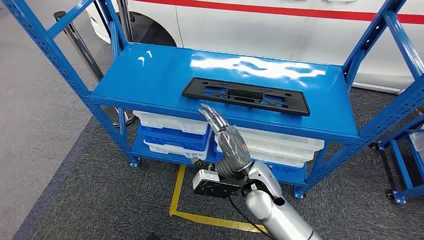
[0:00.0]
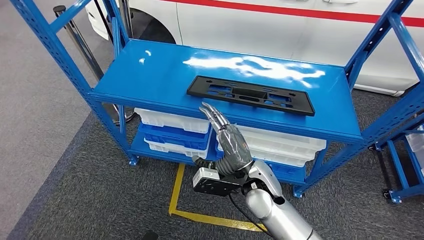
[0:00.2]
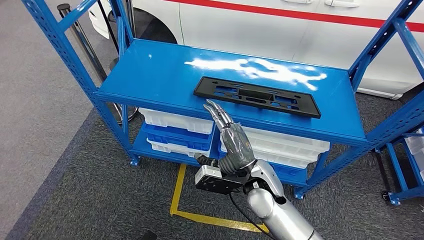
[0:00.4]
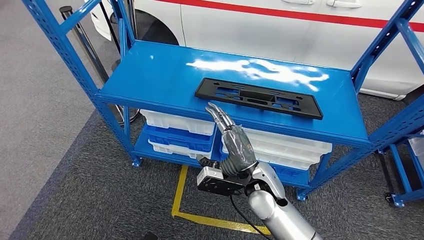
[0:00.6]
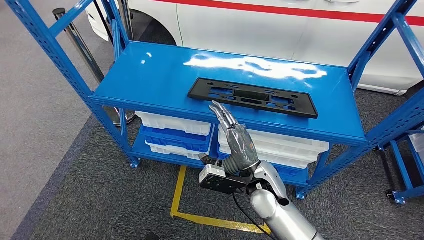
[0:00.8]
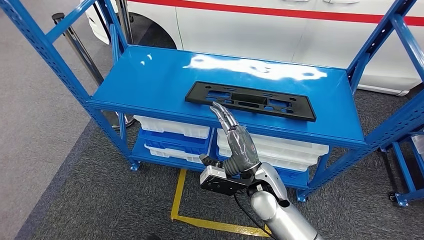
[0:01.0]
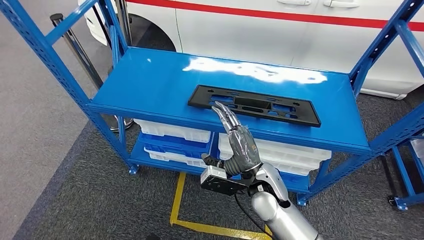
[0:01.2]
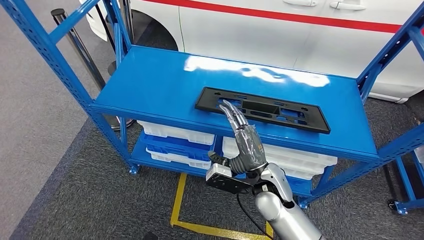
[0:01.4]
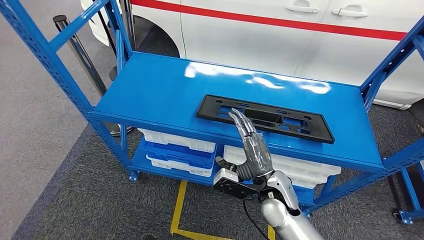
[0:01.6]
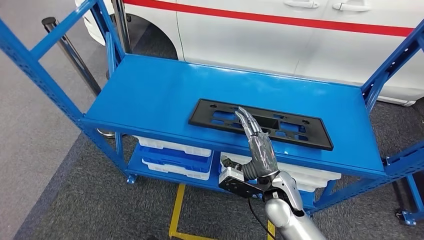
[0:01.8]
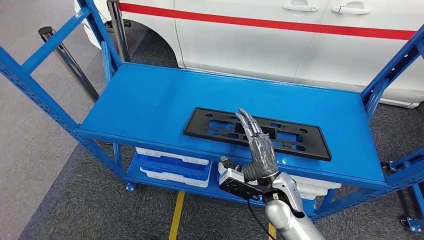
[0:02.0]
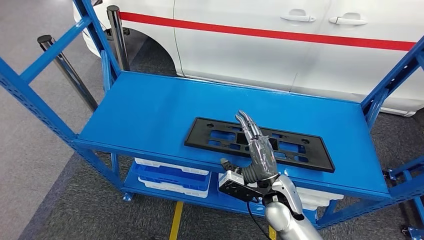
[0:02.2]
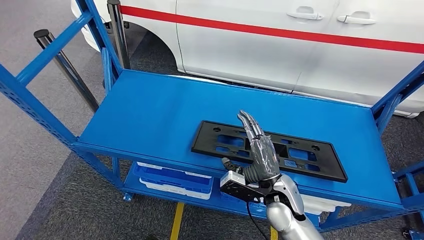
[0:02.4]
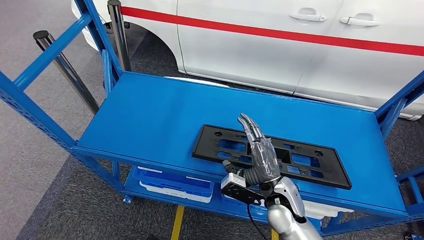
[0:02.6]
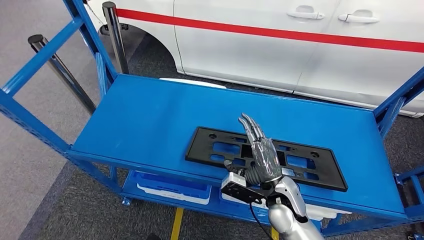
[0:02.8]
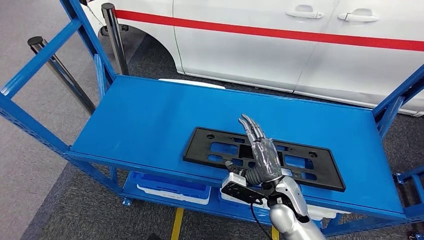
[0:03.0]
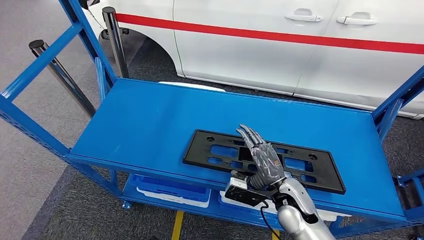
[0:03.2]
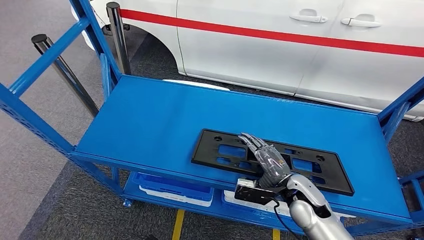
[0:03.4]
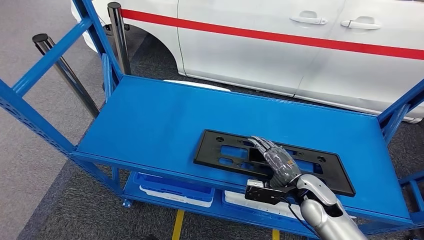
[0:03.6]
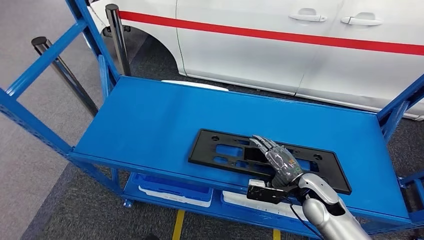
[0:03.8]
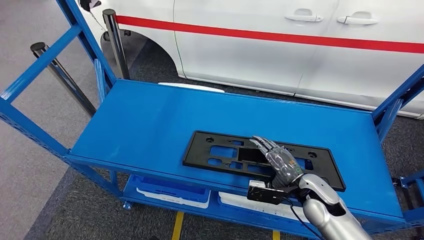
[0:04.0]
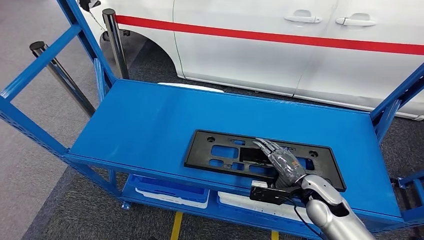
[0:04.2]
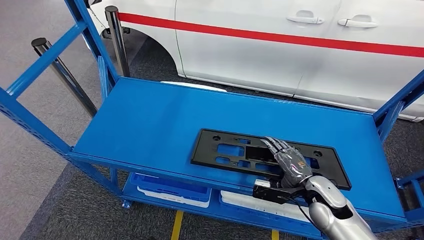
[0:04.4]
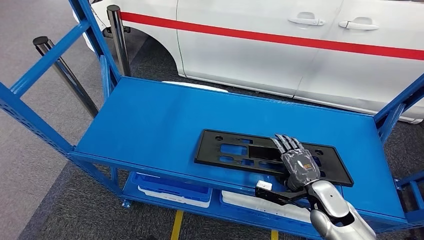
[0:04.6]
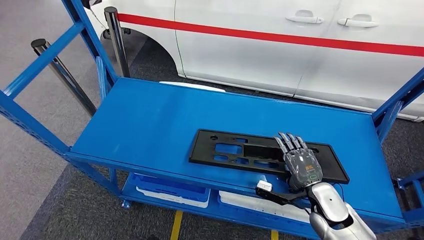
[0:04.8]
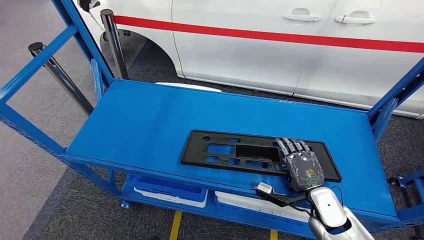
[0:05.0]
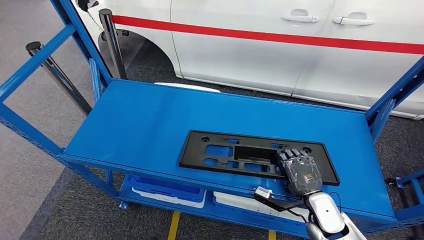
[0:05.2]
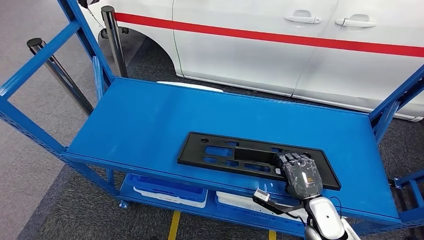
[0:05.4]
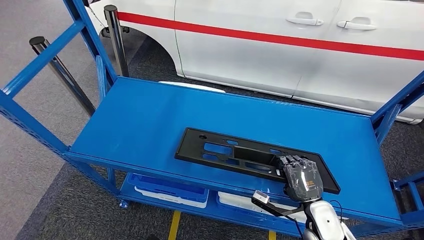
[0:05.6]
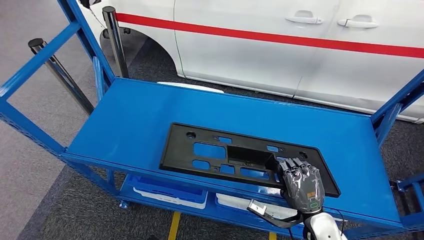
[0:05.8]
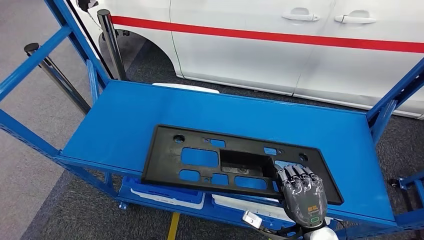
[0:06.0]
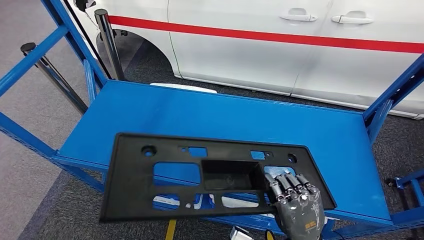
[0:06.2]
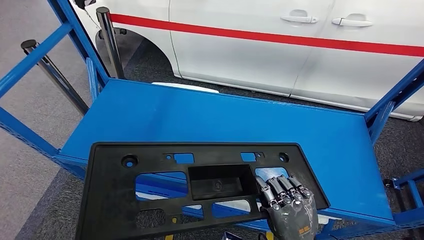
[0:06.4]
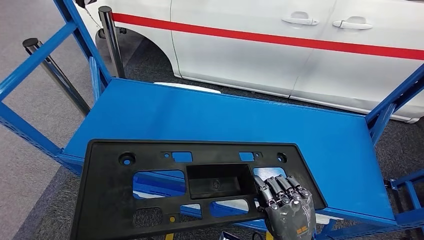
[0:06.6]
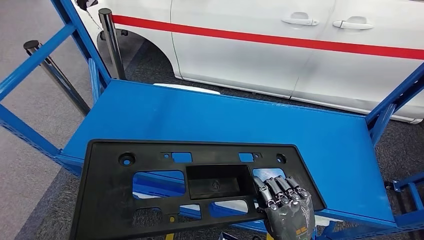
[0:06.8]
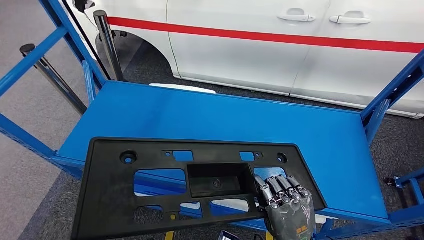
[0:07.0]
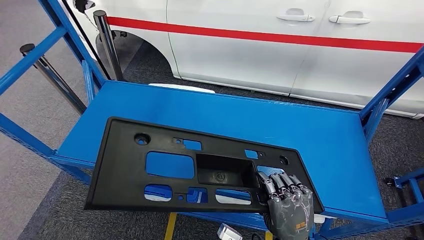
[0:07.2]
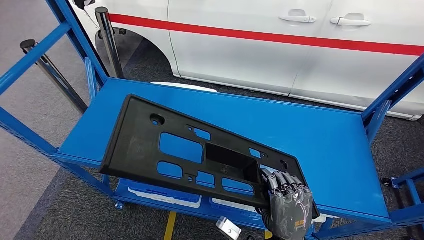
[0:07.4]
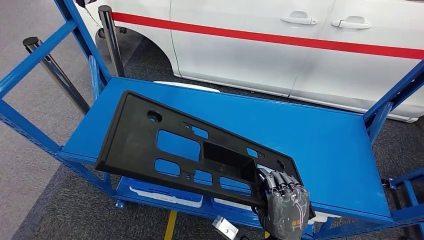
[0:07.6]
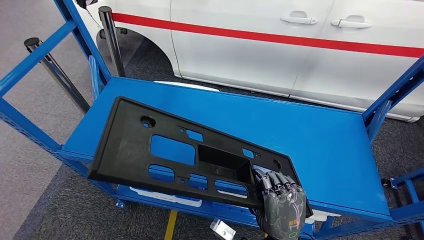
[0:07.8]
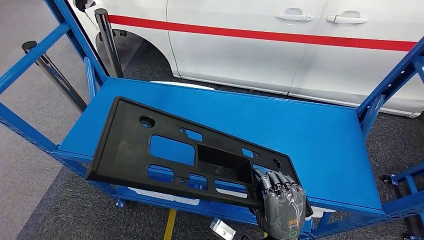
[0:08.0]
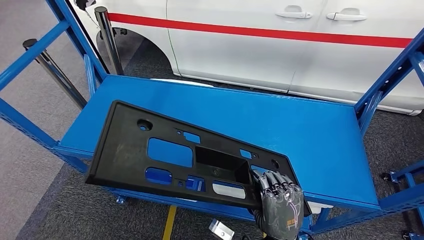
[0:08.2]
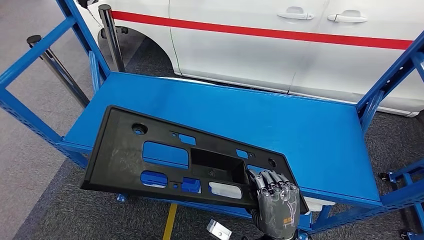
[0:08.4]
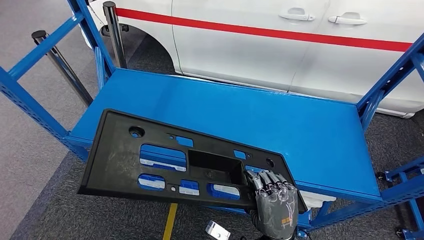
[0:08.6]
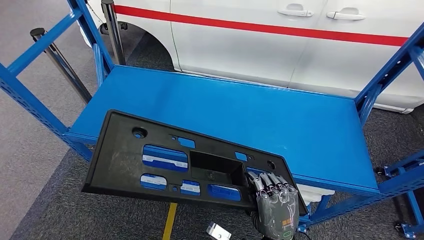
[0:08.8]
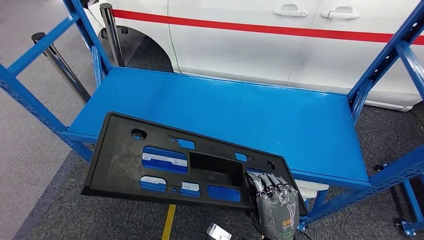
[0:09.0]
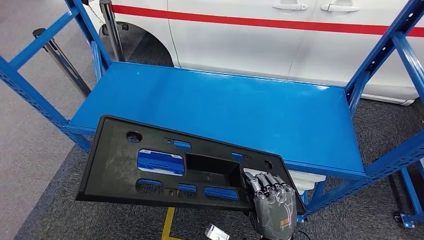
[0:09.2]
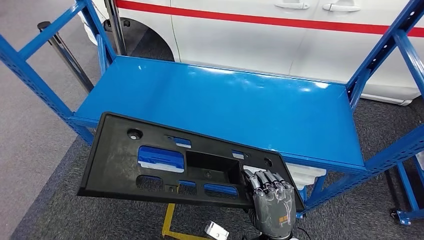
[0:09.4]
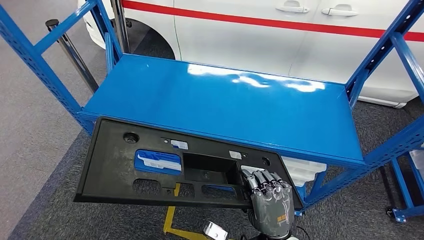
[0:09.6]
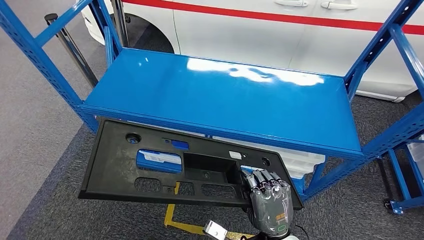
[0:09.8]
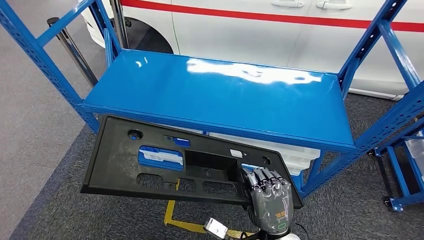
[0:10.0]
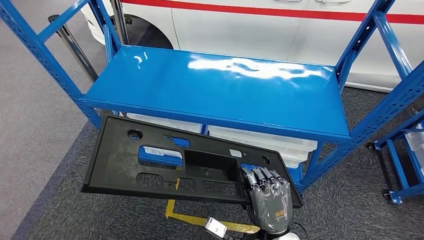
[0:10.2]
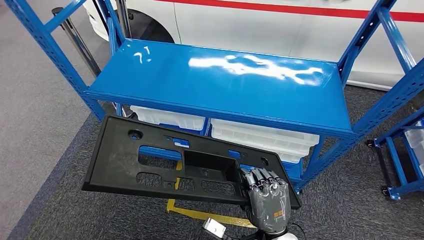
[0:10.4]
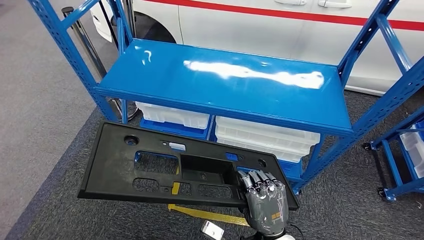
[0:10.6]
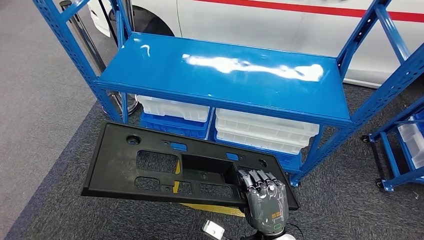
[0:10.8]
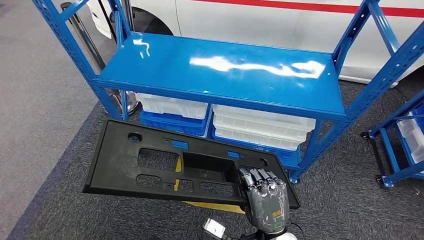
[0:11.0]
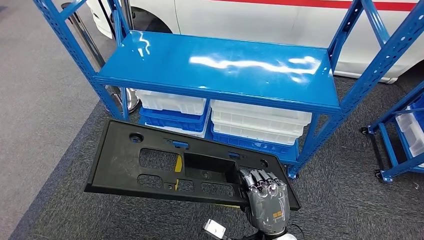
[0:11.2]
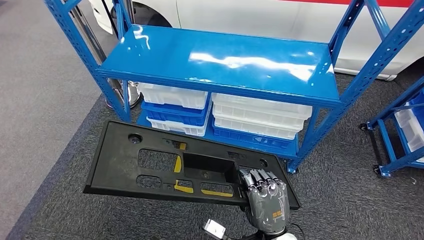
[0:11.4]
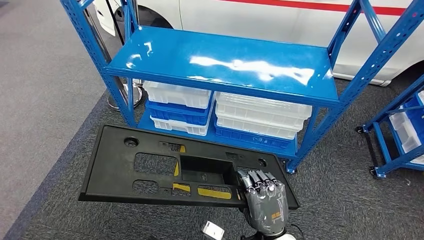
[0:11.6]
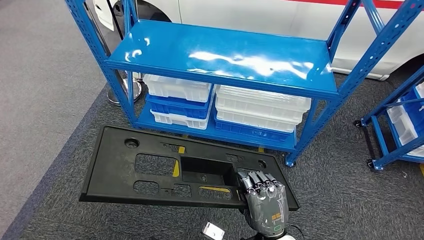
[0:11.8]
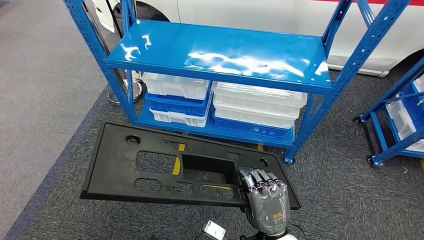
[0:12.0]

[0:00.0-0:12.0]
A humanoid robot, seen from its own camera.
Step, 0:00.0 to 0:09.0: Pick up the large material from the shelf.

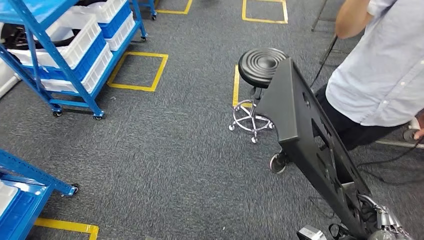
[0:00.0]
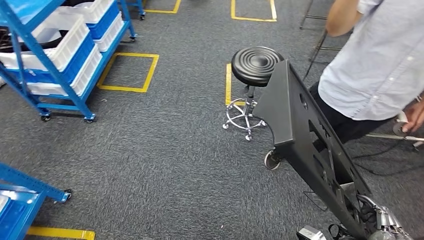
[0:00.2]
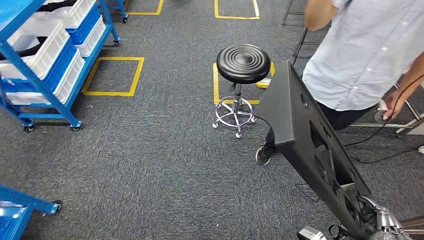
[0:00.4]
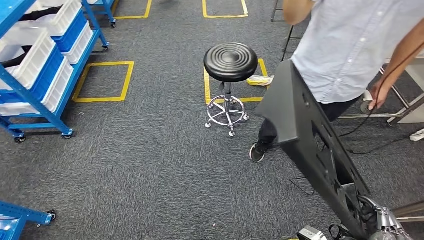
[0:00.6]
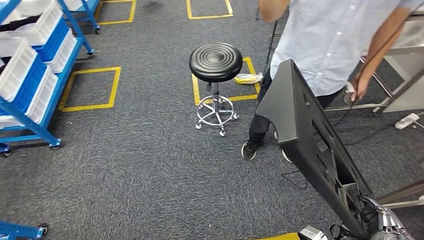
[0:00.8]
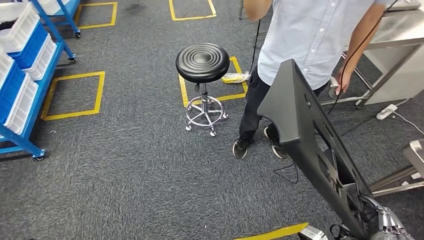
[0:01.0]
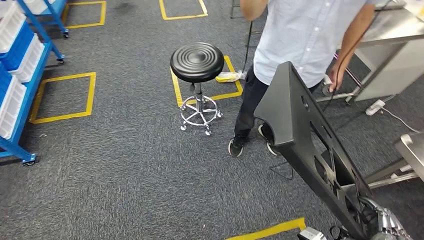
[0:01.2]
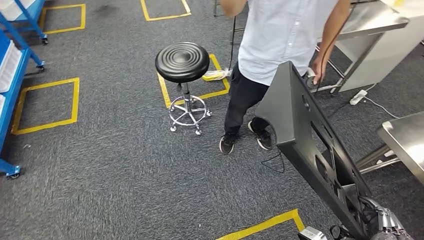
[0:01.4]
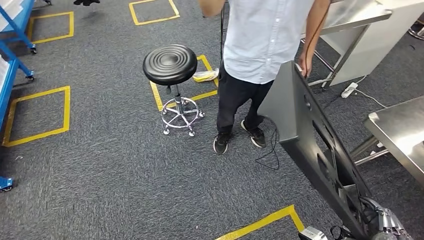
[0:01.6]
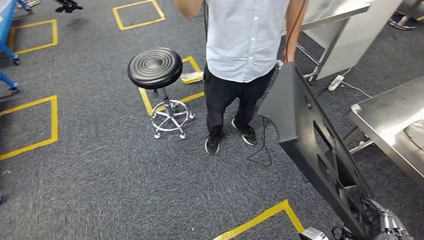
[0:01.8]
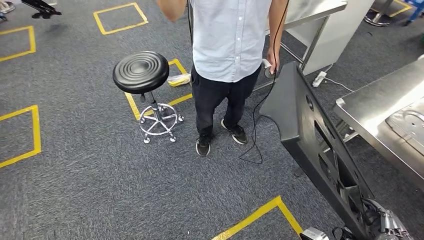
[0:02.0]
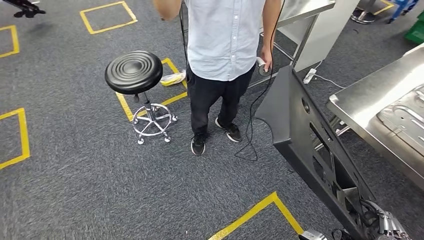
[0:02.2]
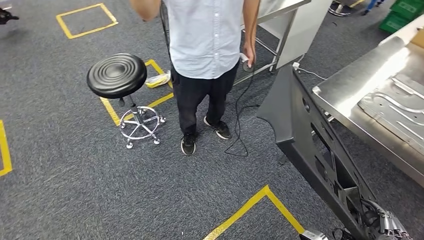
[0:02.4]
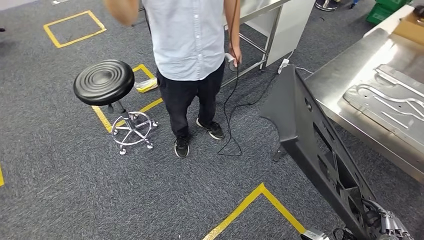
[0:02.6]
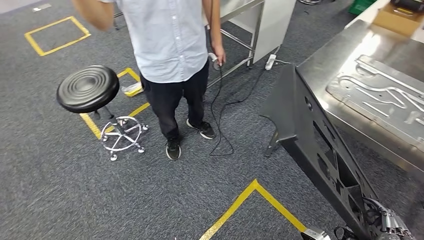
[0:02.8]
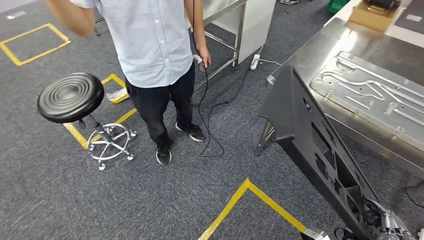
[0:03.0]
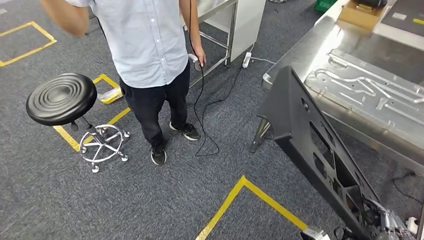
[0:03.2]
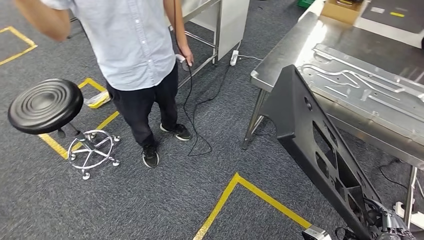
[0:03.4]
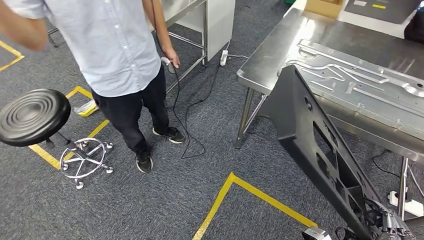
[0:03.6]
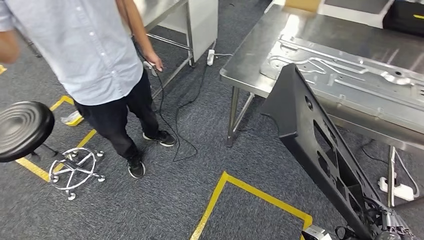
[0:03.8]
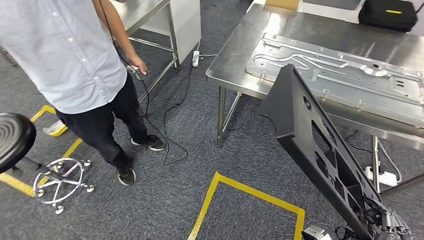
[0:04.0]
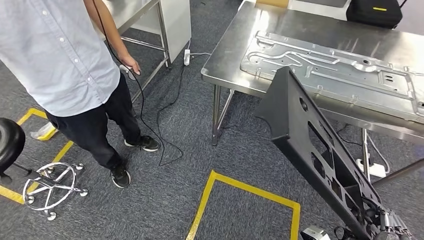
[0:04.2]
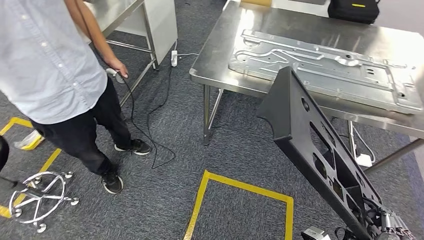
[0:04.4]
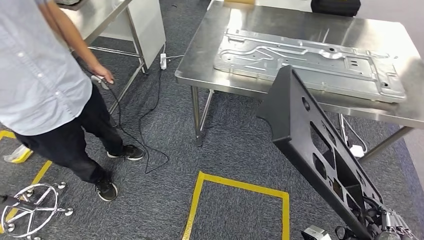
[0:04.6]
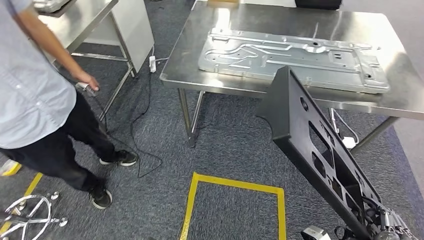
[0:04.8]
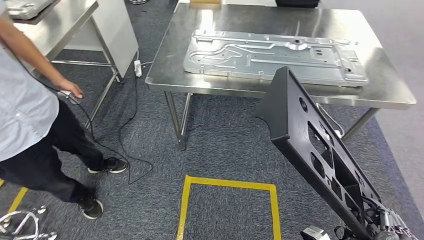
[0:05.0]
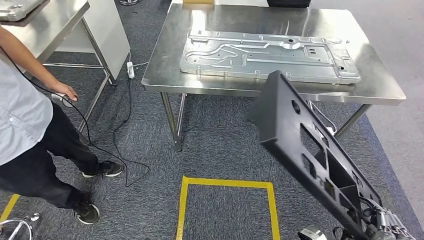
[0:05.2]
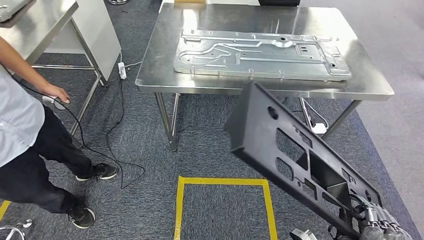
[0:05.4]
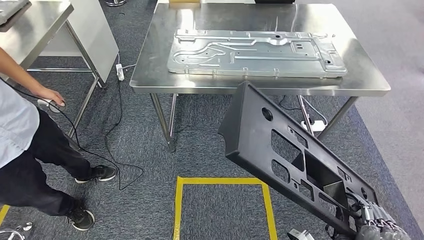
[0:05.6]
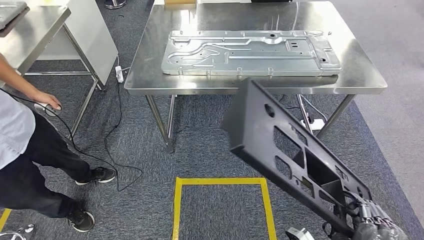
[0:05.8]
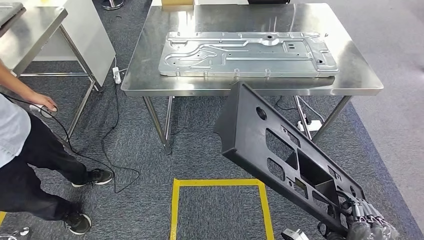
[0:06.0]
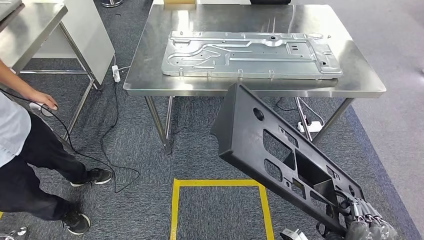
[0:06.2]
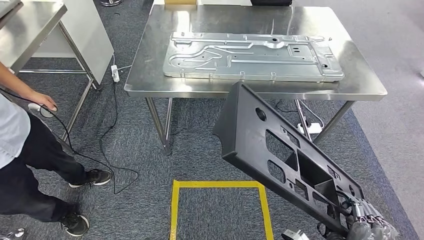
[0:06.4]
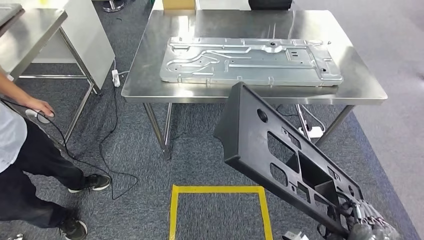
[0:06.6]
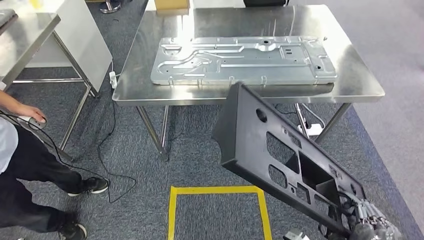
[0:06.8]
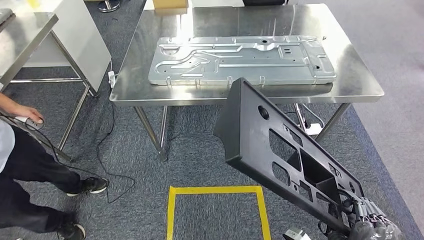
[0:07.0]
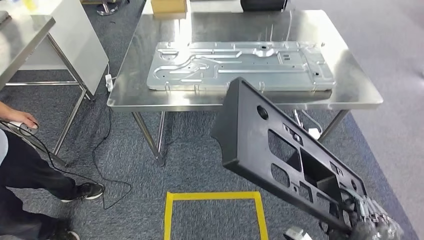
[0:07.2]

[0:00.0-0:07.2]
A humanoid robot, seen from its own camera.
Step, 0:00.0 to 0:07.0: Move the large material to the workbench.
